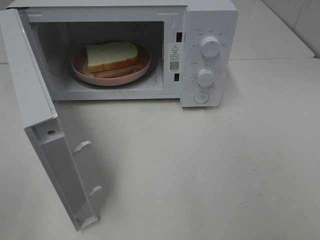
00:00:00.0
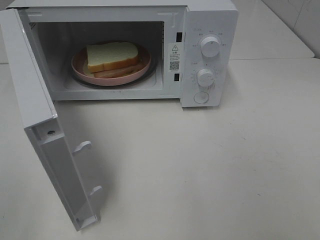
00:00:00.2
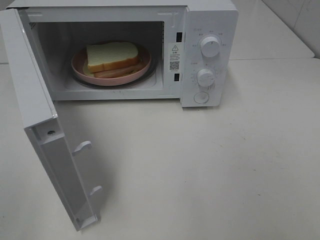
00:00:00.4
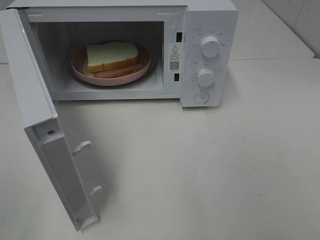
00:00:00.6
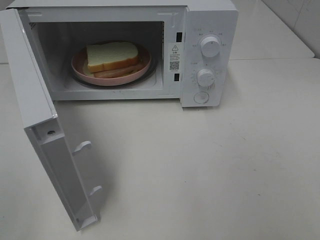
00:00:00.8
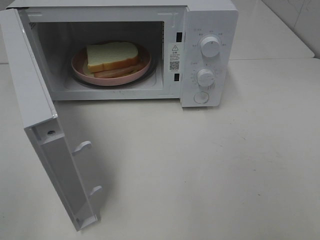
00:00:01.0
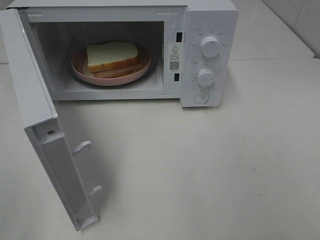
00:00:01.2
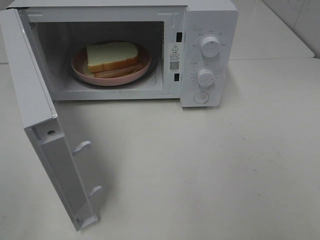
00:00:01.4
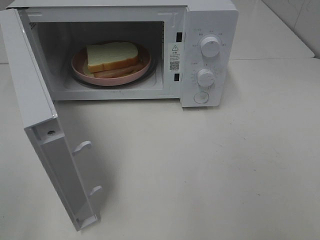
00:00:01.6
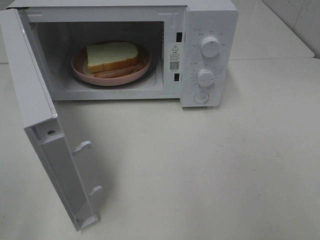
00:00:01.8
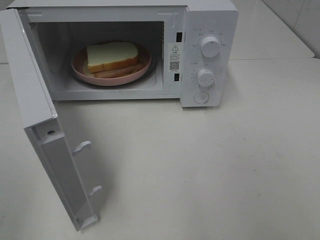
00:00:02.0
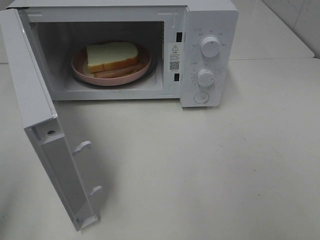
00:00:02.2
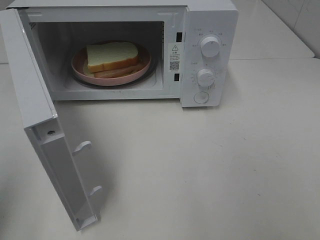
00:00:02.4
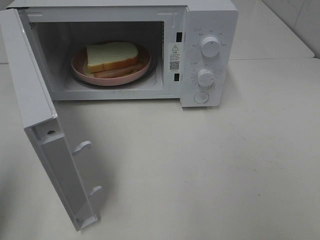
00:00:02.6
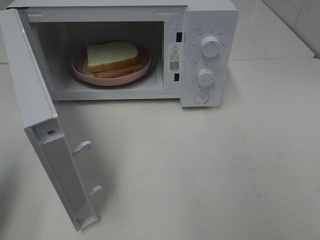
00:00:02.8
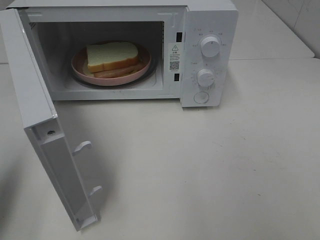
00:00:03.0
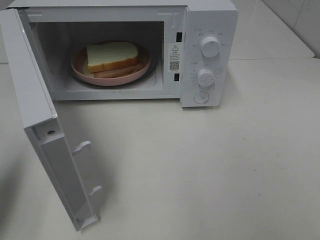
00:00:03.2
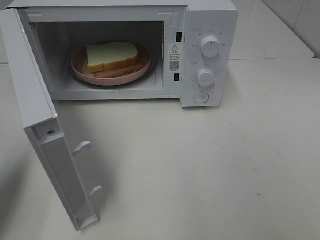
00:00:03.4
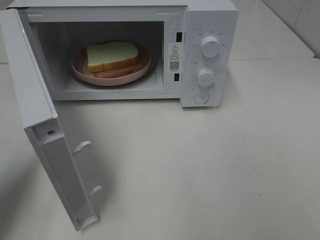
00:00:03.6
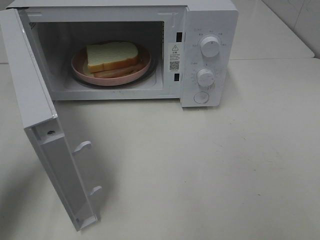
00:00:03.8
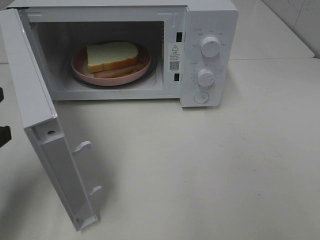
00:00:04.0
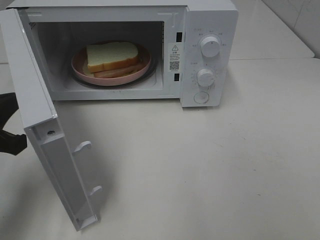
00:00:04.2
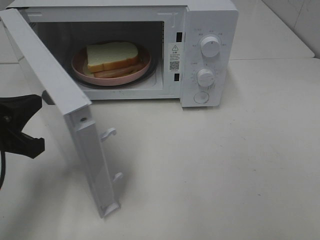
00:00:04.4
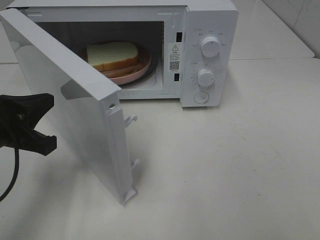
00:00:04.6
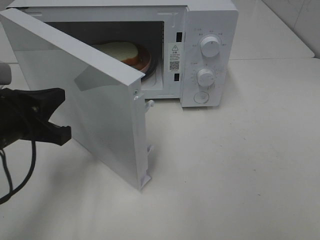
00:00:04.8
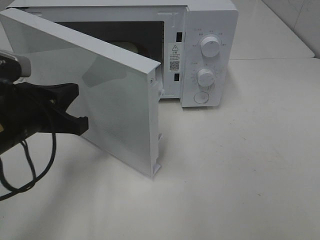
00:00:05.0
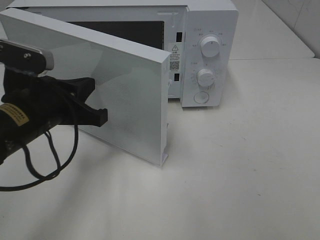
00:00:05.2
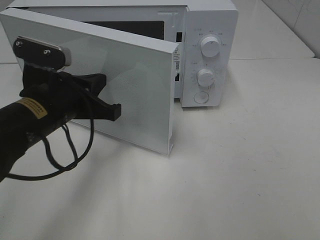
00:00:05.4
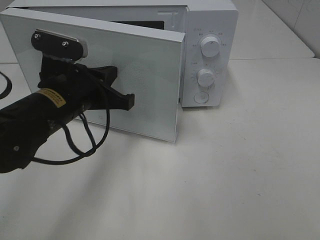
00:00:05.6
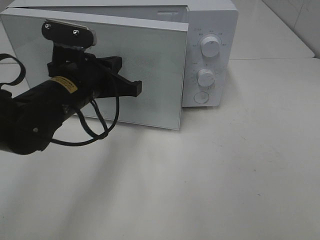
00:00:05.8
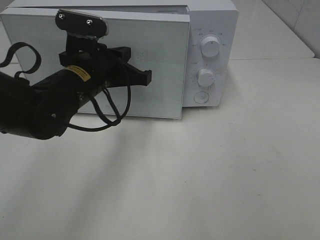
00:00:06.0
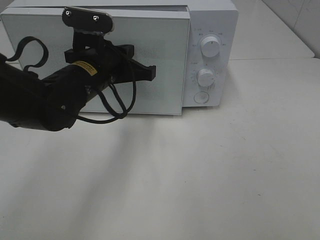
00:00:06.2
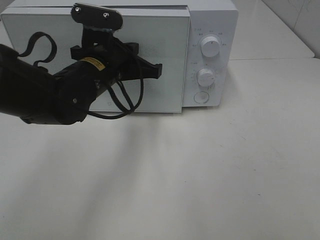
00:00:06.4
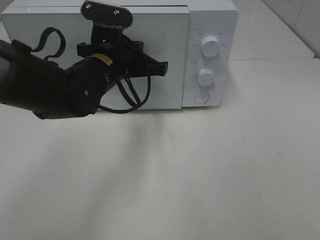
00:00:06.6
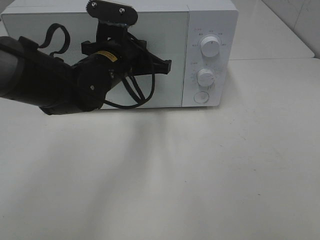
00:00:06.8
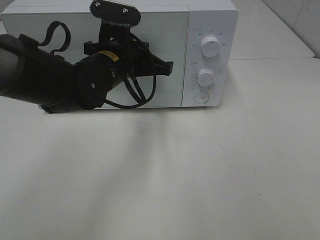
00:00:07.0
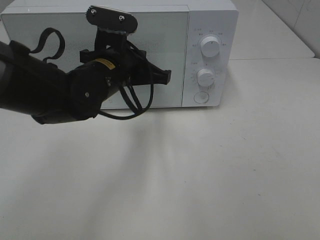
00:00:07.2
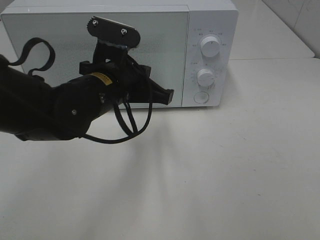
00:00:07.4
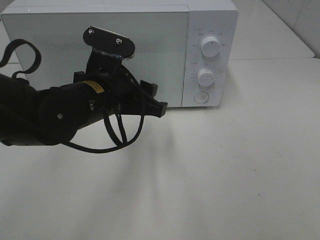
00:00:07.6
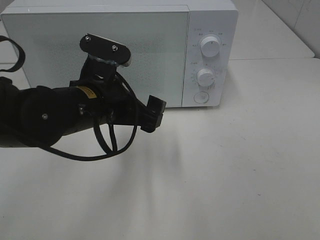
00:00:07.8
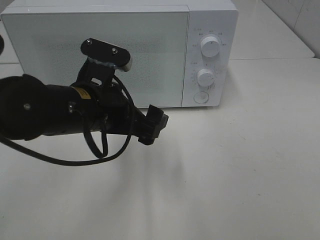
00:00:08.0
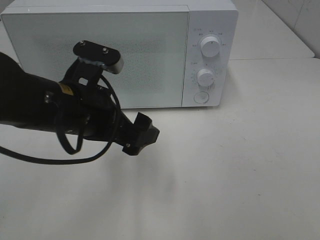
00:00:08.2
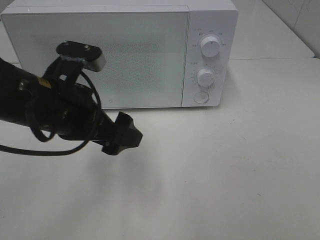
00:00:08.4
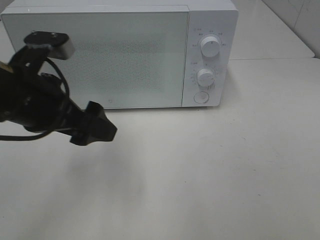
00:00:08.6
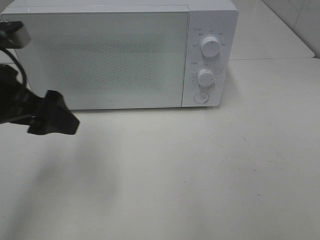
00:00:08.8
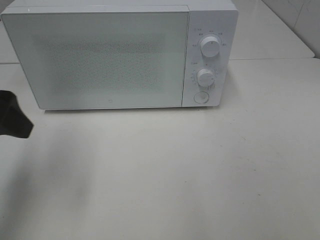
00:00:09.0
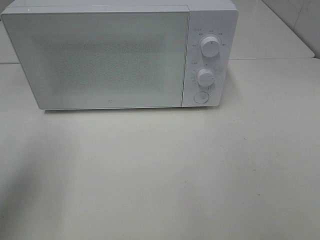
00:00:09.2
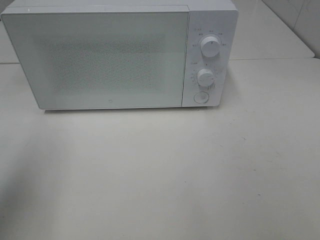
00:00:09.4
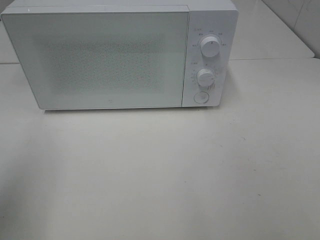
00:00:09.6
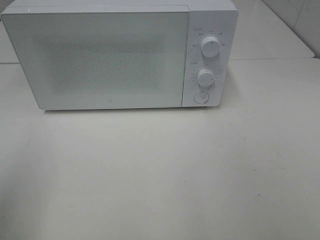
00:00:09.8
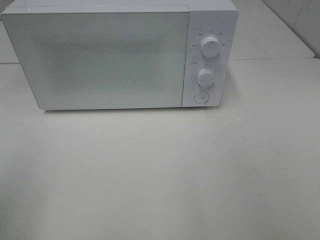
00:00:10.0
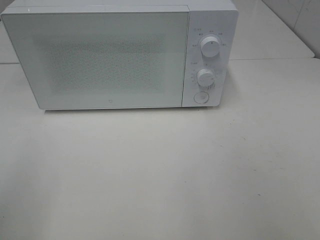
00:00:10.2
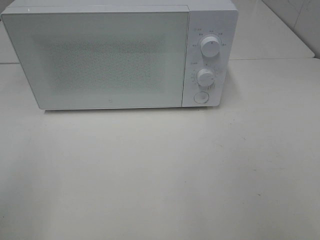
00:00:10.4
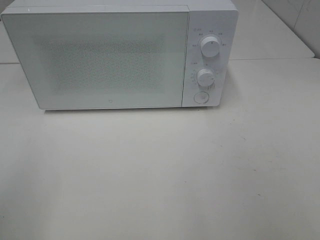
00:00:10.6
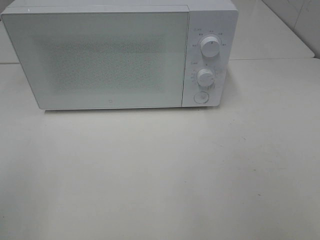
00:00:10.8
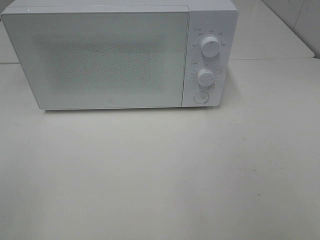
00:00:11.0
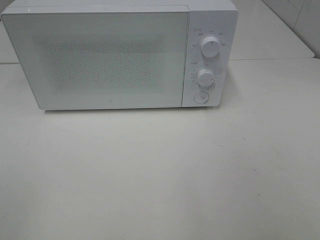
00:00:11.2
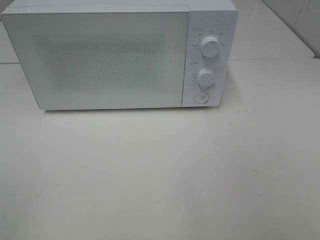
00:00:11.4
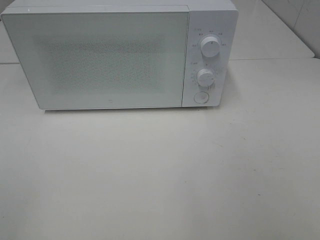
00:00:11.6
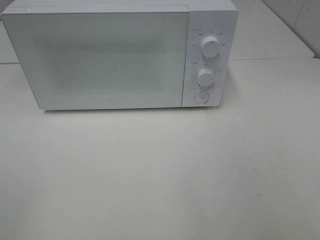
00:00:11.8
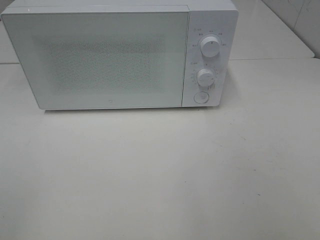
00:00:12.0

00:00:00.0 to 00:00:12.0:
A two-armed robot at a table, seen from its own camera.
Task of the whole recording: Heat Sandwich.
Step, 00:00:00.0 to 00:00:08.0: Left hand: close the microwave door.
00:00:00.0 to 00:00:01.6: The two grippers keep their place.
00:00:01.6 to 00:00:03.0: The left gripper is displaced forward by some 15 cm, and closes its fingers.
00:00:03.0 to 00:00:04.4: The left gripper heads to the right, downward and forward, covering approximately 10 cm.
00:00:04.4 to 00:00:06.0: The left gripper goes approximately 20 cm to the right and forward.
00:00:06.0 to 00:00:07.6: The left gripper opens up.
00:00:07.6 to 00:00:09.0: The left gripper travels to the left and upward by approximately 20 cm, and opens its fingers.
00:00:09.0 to 00:00:10.4: The left gripper travels backward by roughly 15 cm.

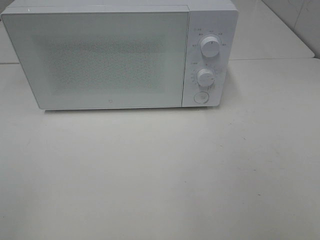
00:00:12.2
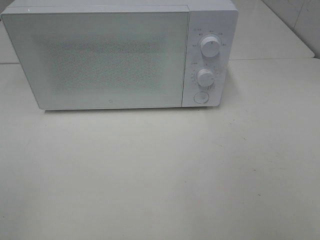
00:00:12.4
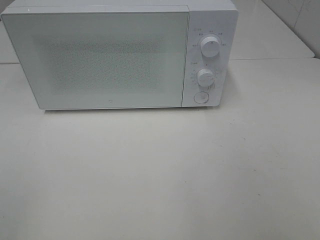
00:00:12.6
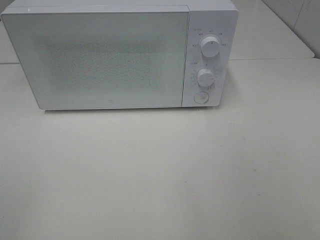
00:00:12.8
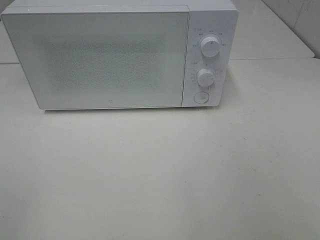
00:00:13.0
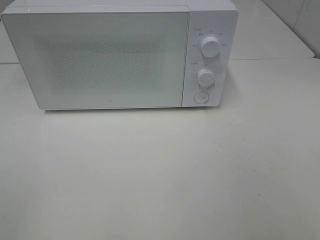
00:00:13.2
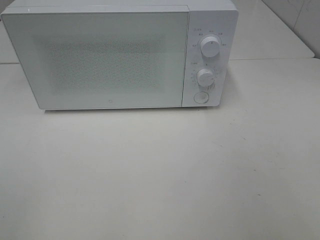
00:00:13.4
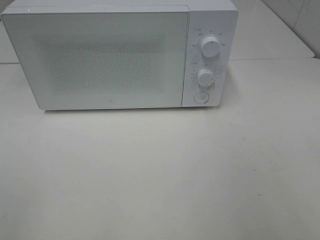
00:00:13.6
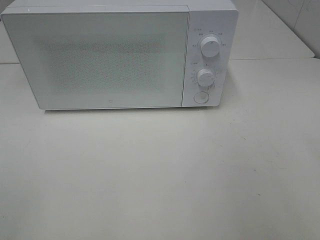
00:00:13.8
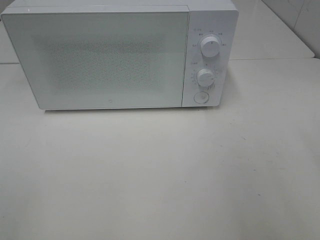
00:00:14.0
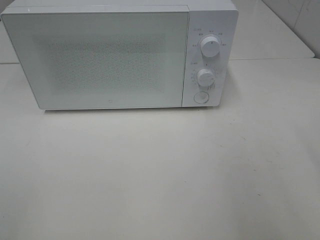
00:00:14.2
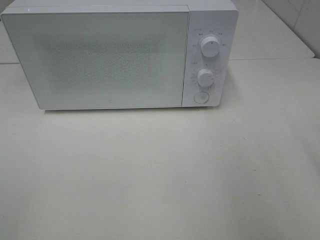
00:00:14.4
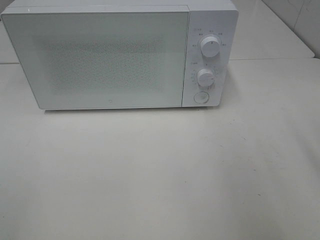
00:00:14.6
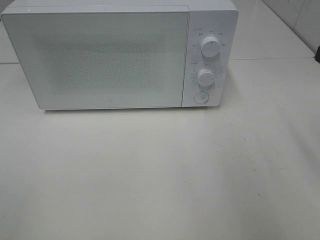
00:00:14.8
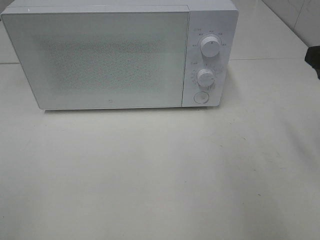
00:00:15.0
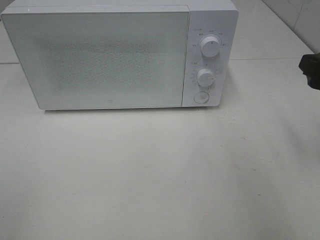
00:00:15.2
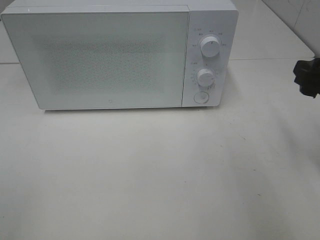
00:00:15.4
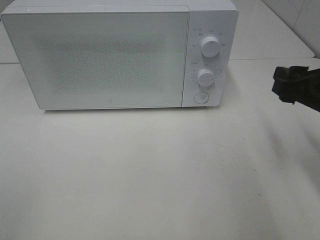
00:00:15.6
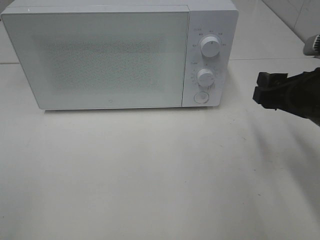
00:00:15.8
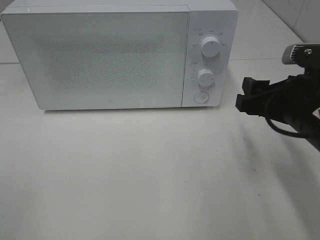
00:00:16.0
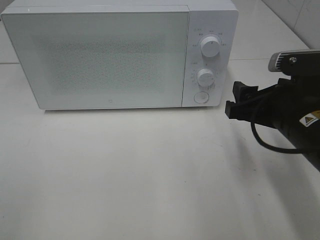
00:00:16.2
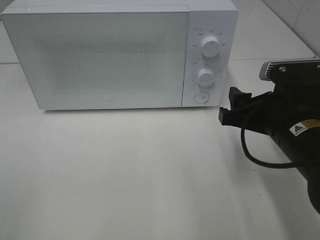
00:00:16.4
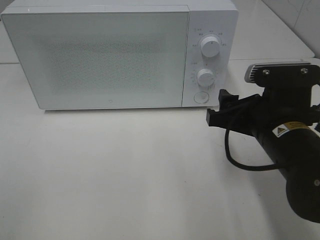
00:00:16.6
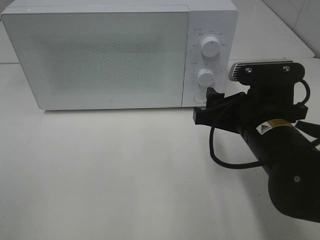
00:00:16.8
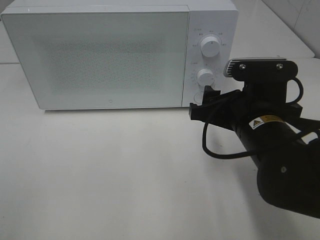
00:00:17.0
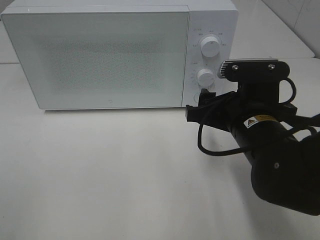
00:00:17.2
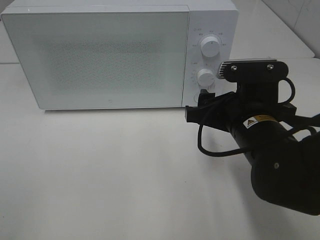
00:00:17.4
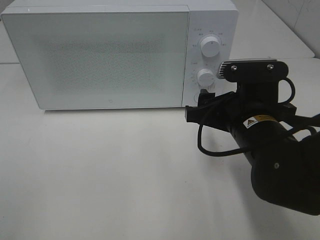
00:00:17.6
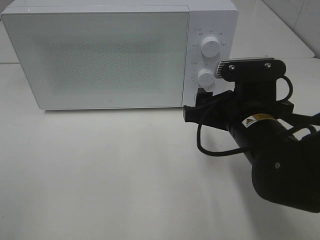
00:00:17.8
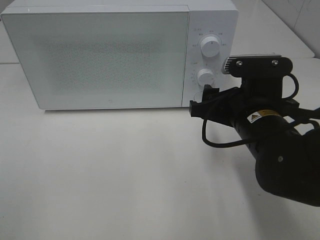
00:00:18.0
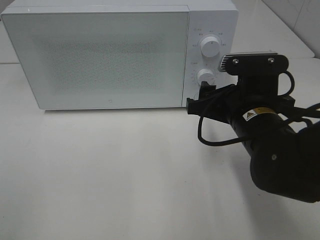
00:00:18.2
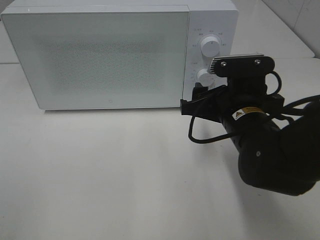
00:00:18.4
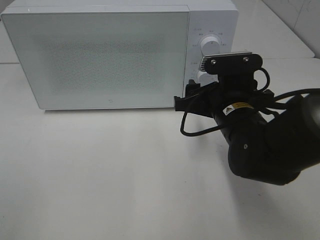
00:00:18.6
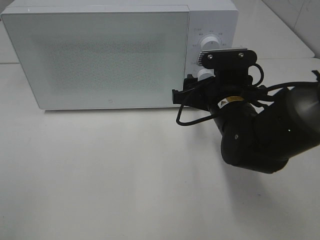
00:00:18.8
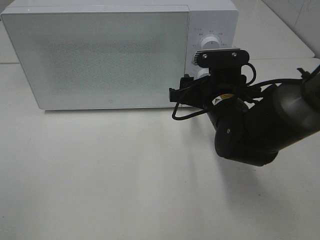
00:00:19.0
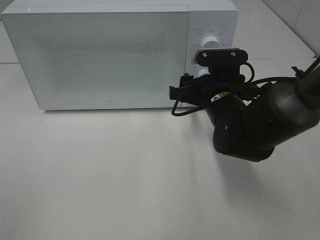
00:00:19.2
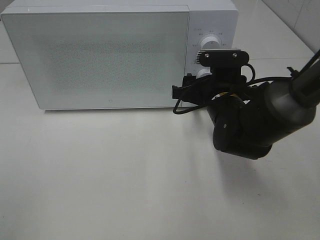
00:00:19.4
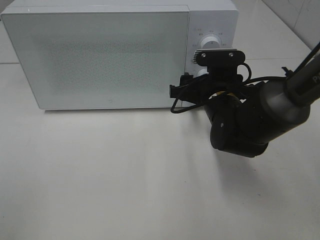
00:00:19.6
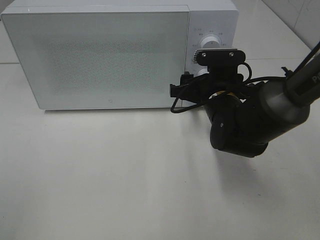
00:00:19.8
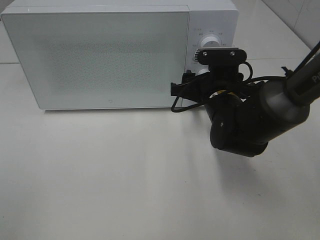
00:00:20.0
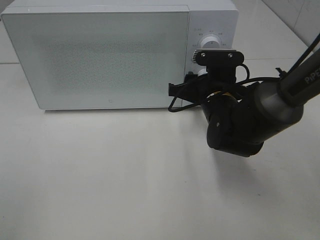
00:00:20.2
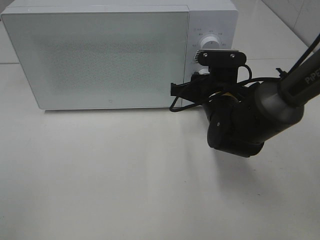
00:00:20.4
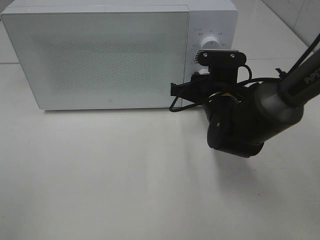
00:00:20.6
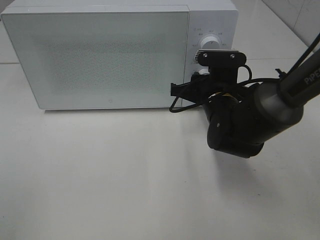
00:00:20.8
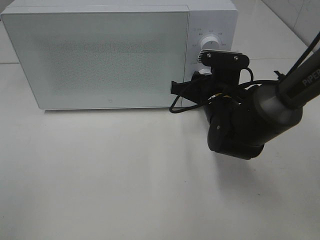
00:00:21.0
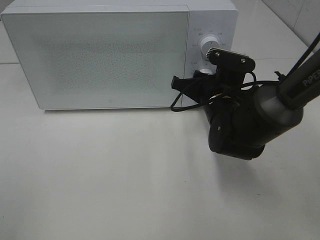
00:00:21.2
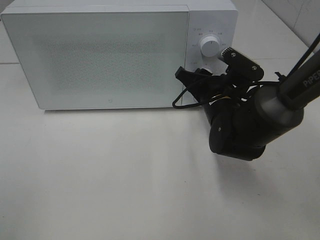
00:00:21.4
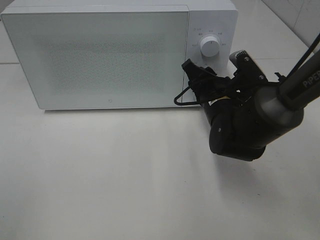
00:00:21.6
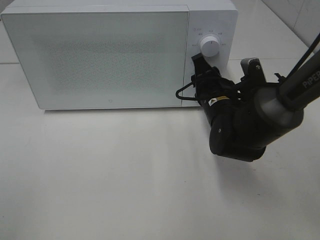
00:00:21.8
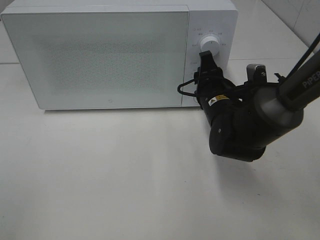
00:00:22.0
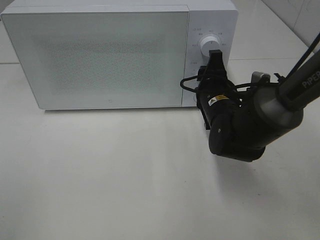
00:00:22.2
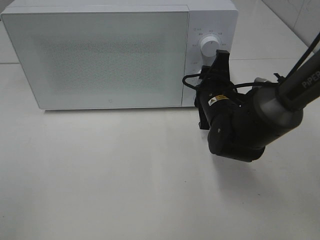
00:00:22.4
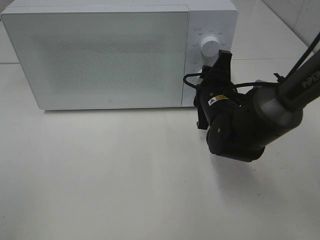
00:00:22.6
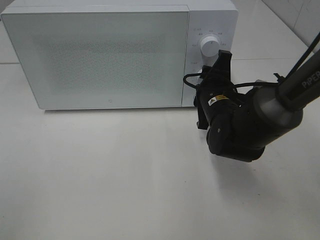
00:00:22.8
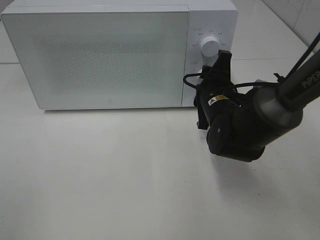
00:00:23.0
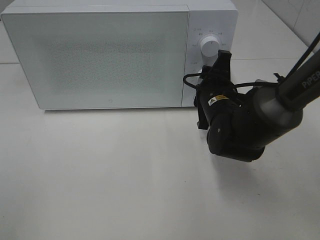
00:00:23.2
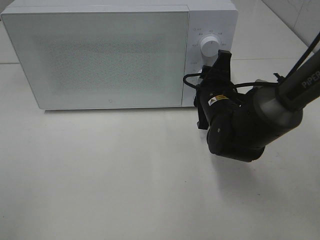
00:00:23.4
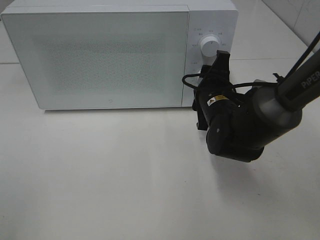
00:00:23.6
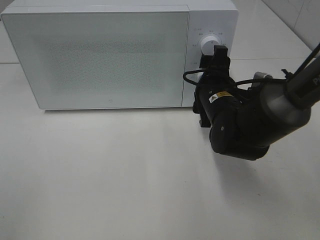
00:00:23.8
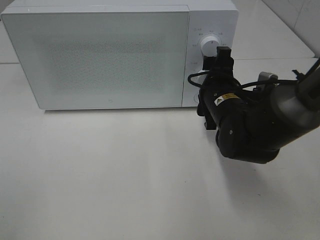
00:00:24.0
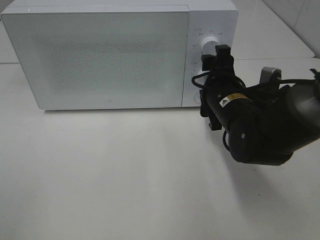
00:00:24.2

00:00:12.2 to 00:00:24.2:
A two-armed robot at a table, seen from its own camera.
Task of the whole recording: Heat Sandwich.
Step, 00:00:12.2 to 00:00:24.0: Right hand: twist timer button.
00:00:13.8 to 00:00:15.2: The right gripper shifts roughly 15 cm forward and downward.
00:00:15.2 to 00:00:16.6: The right gripper goes roughly 15 cm to the left and downward.
00:00:16.6 to 00:00:18.2: The grippers move only a little.
00:00:18.2 to 00:00:19.8: The right gripper travels forward by approximately 10 cm.
00:00:19.8 to 00:00:21.2: The right gripper closes.
00:00:22.6 to 00:00:24.2: The right gripper opens up.
